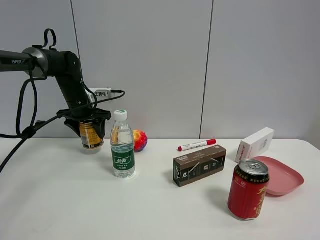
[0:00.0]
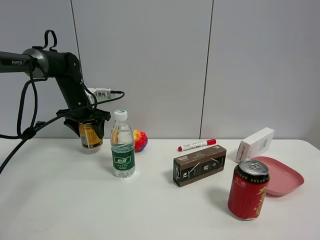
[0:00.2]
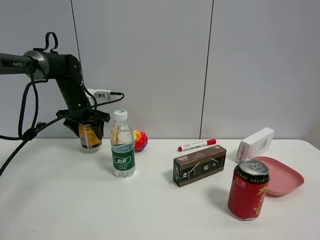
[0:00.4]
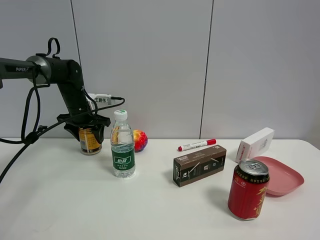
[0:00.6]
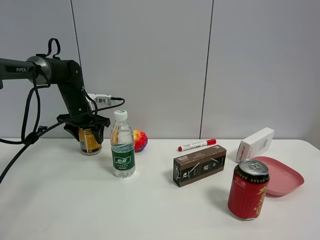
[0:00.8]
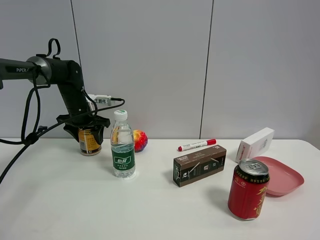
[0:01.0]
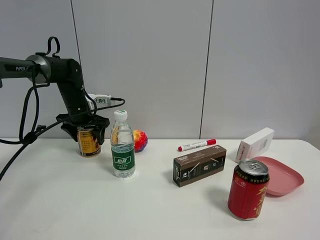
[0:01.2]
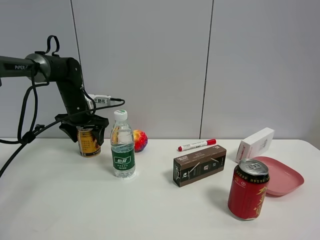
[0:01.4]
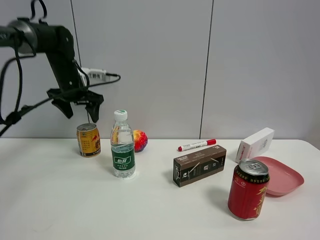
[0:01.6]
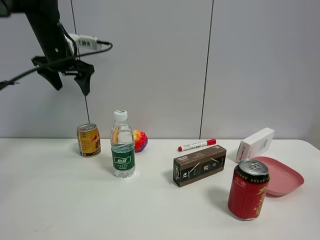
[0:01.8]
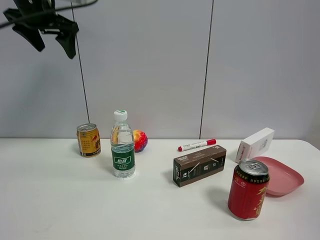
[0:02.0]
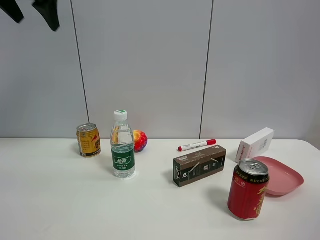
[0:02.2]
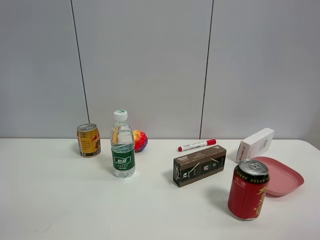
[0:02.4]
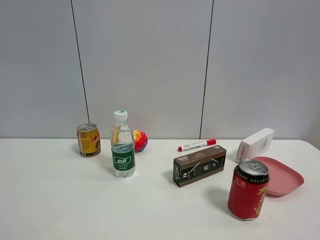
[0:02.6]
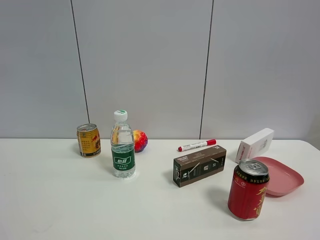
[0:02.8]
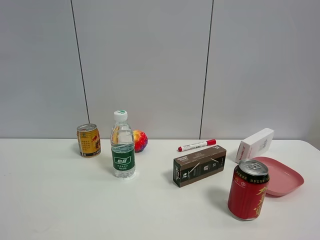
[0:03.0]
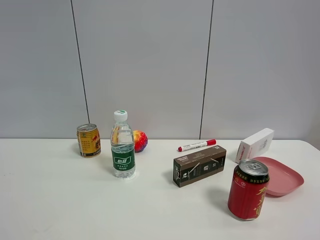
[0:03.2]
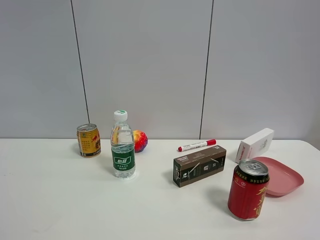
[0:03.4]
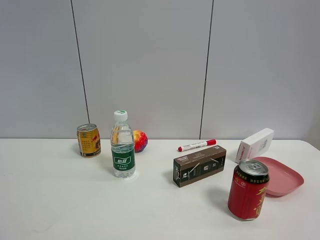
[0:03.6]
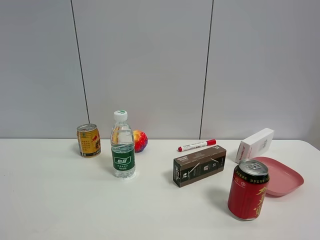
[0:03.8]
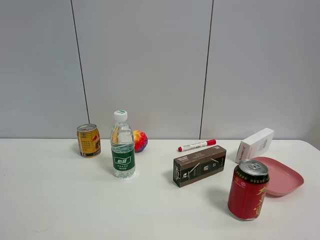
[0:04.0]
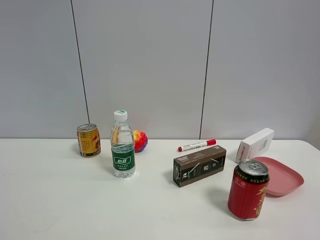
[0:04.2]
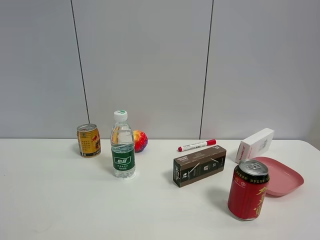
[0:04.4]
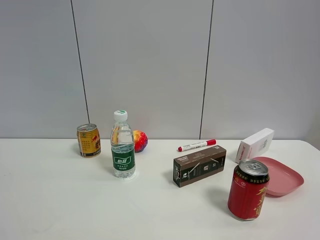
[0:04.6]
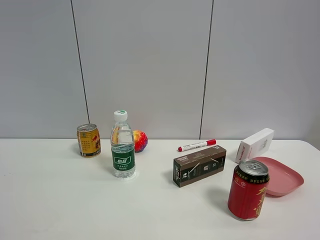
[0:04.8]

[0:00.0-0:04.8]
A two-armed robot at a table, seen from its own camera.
Task of the whole recording: the gripper move the object.
0:00.0 to 0:01.6: The left gripper travels upward by roughly 10 cm, and opens up.
0:01.6 to 0:03.2: The left gripper travels backward by approximately 50 cm.

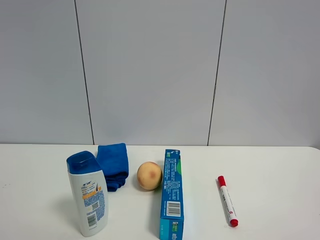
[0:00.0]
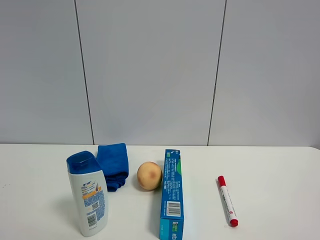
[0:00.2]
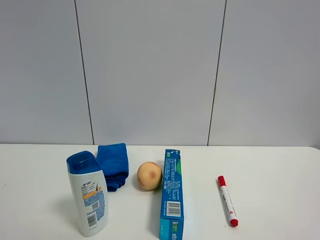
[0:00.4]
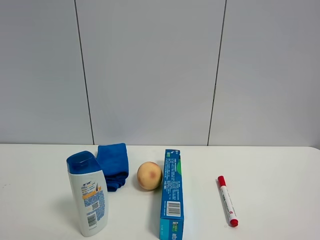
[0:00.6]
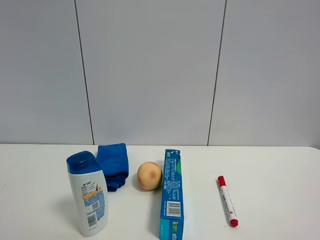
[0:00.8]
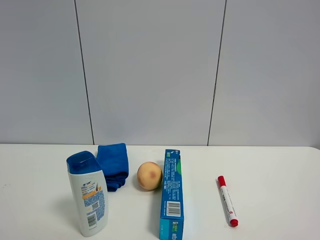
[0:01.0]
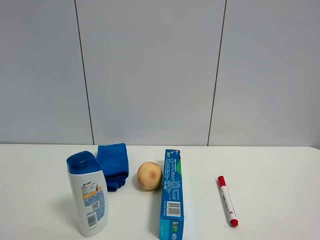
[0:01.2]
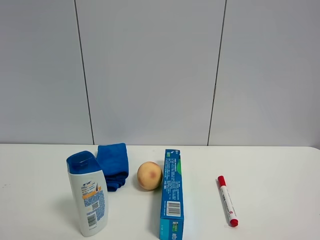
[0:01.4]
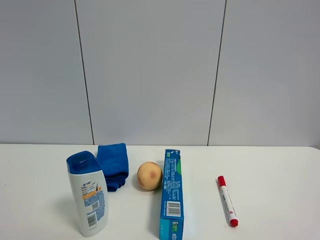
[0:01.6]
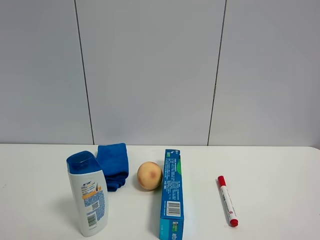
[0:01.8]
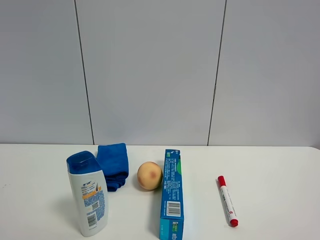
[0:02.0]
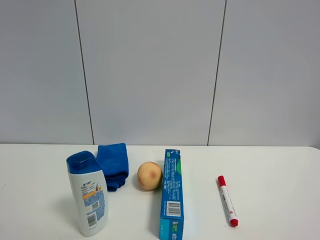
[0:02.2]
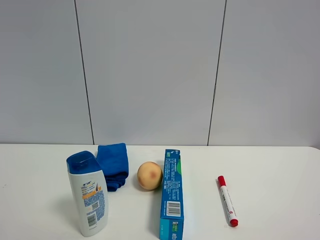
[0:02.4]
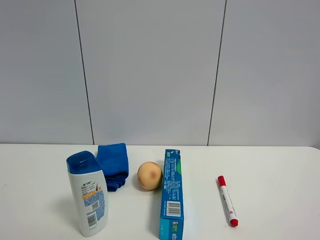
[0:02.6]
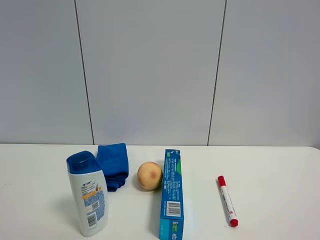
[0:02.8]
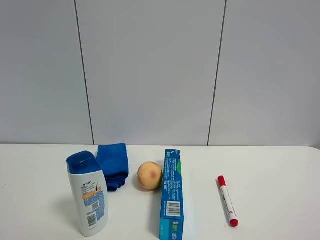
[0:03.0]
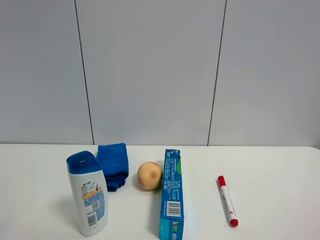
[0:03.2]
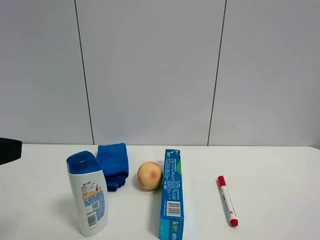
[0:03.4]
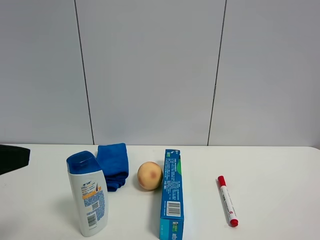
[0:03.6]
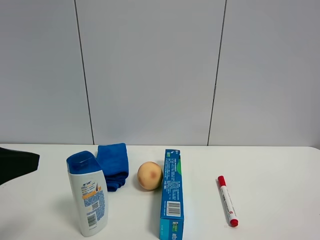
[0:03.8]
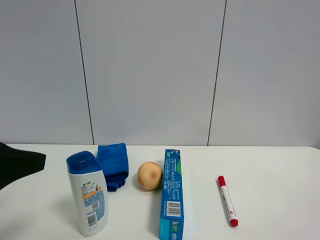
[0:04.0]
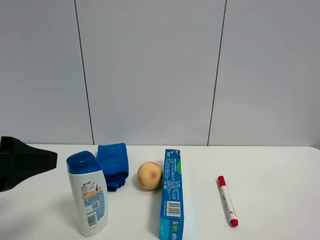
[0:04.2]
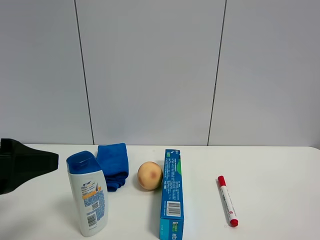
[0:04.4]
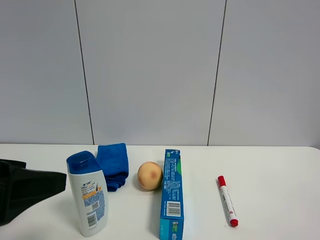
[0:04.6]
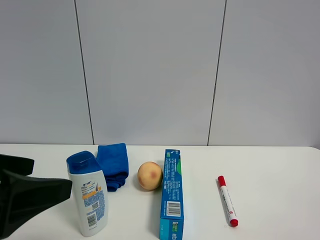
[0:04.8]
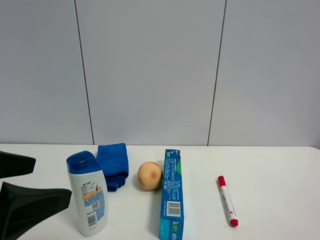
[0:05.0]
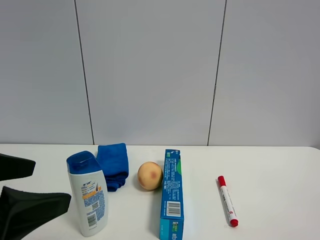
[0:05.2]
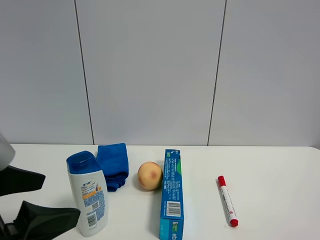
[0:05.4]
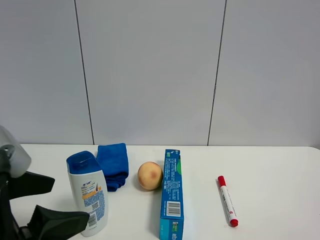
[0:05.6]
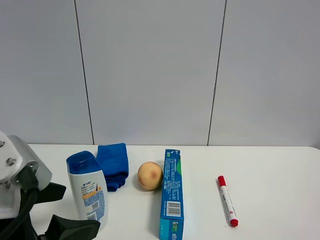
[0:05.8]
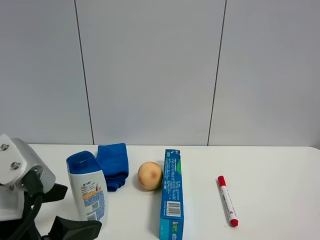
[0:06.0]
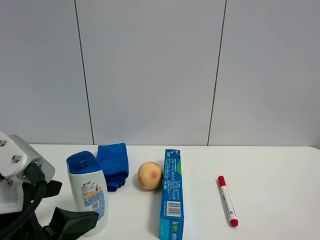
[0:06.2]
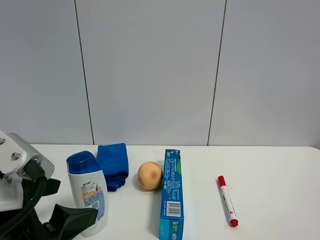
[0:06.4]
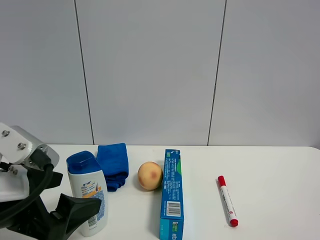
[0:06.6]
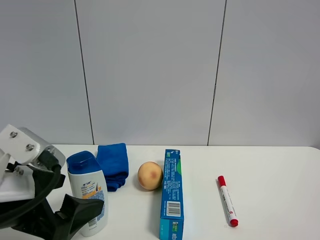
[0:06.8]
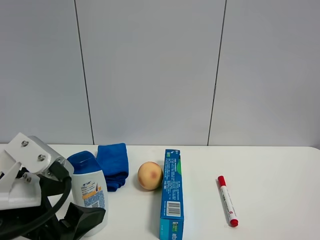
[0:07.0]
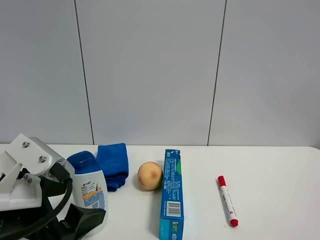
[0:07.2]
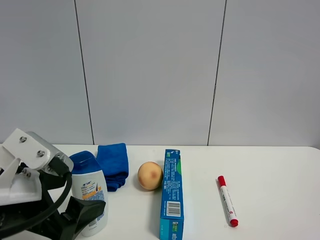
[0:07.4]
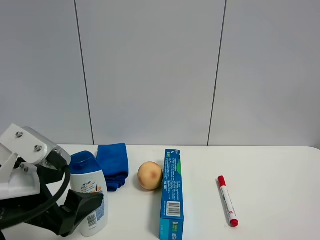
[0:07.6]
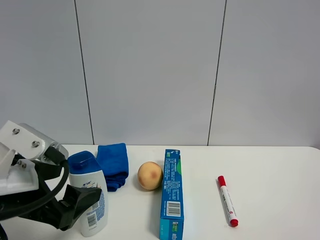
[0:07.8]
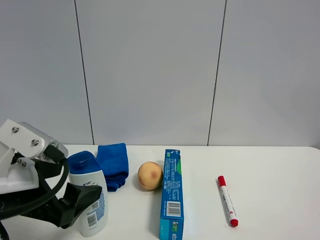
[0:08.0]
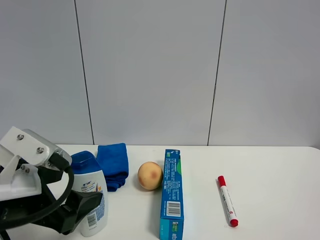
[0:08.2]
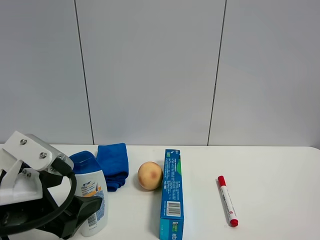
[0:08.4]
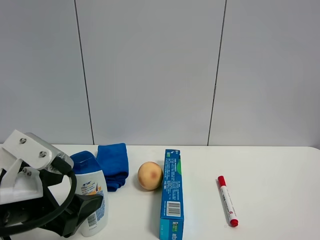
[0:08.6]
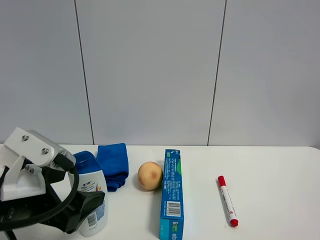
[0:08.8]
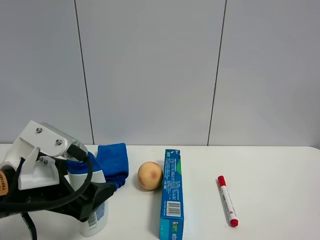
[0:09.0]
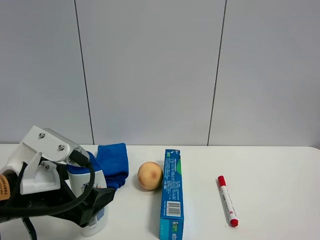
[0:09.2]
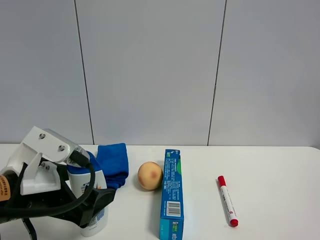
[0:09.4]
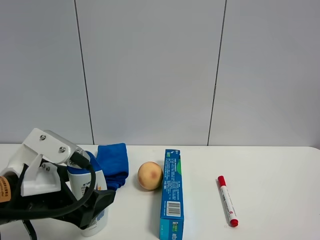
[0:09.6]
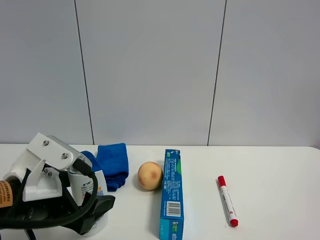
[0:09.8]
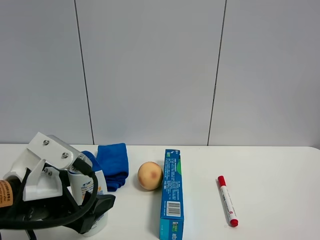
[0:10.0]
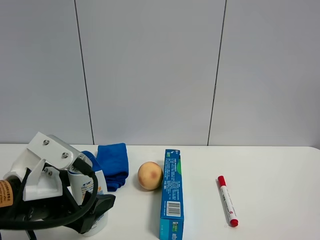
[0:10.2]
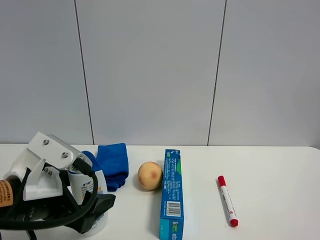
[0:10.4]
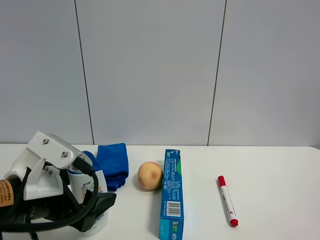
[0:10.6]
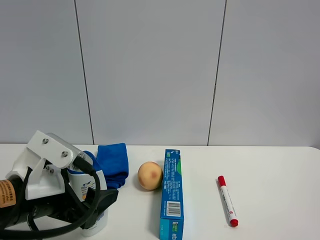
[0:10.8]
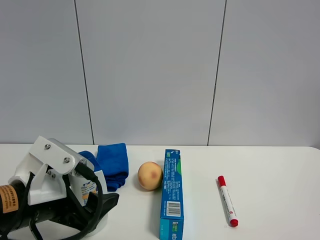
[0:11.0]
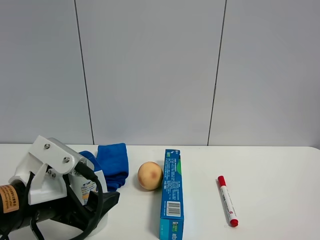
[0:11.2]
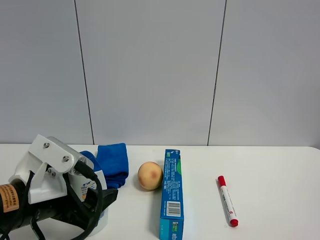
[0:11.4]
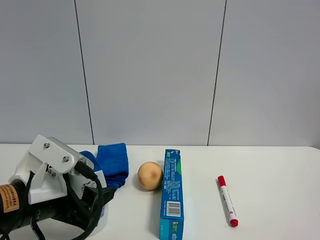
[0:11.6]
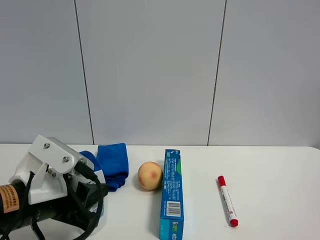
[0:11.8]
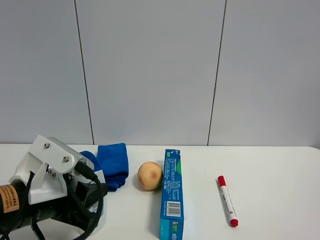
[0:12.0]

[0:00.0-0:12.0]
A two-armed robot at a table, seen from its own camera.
Task of the whole recording: the gripper move the object.
Step, 0:00.0 to 0:12.0: Grasp the shampoo with the left gripper.
0:03.0 to 0:04.4: The left gripper shifts some 10 cm downward and forward.
0:04.4 to 0:06.0: The left gripper goes approximately 5 cm downward.
0:06.0 to 0:09.0: The grippers move only a little.
0:09.0 to 0:10.4: The two grippers keep their place.
0:10.4 to 0:12.0: The left gripper closes its fingers.

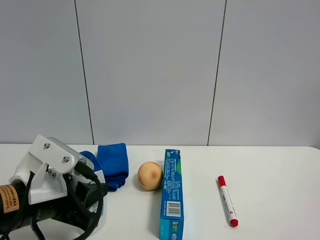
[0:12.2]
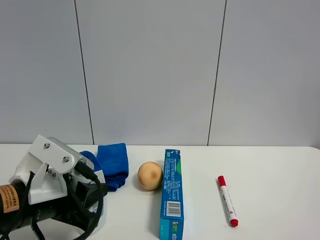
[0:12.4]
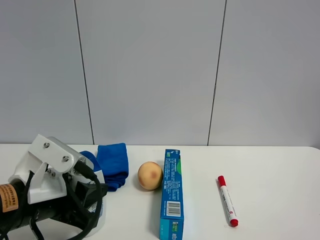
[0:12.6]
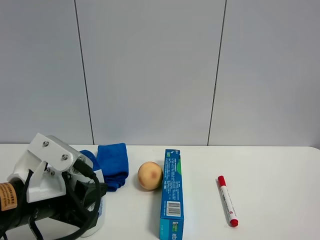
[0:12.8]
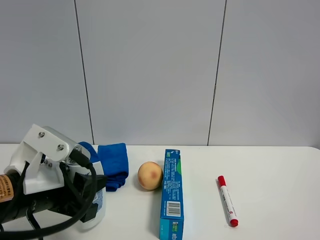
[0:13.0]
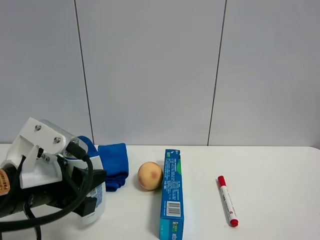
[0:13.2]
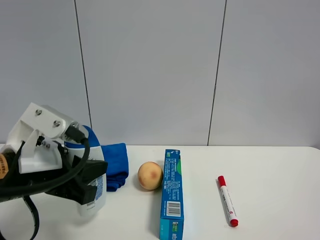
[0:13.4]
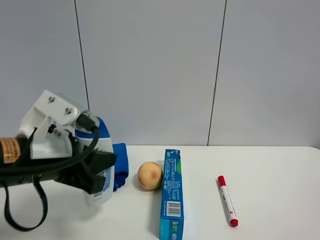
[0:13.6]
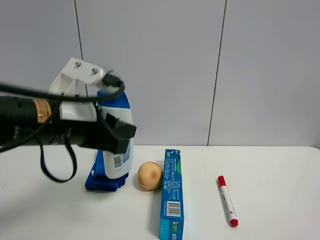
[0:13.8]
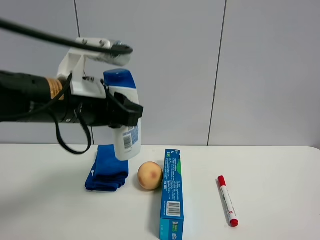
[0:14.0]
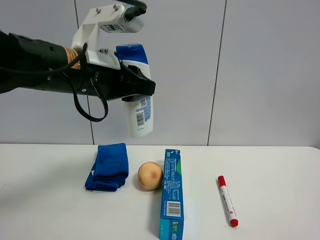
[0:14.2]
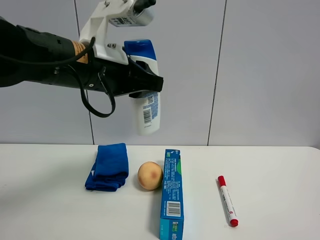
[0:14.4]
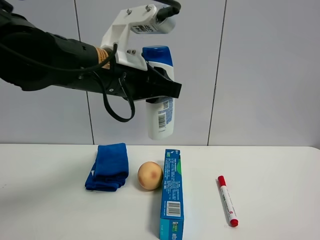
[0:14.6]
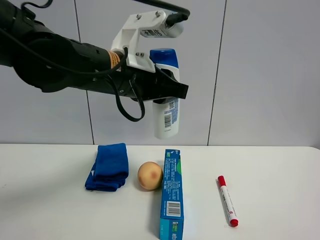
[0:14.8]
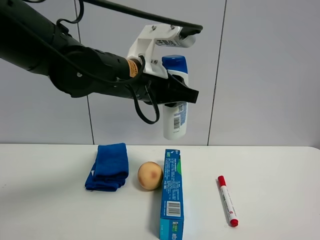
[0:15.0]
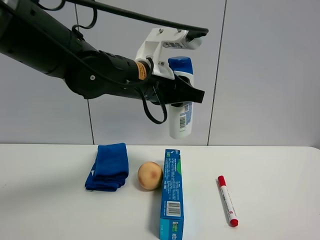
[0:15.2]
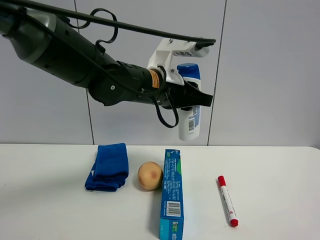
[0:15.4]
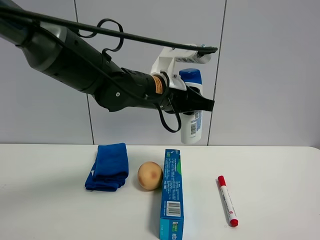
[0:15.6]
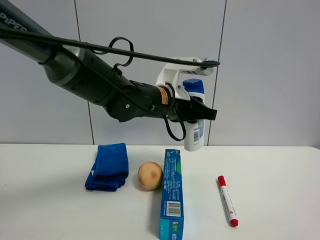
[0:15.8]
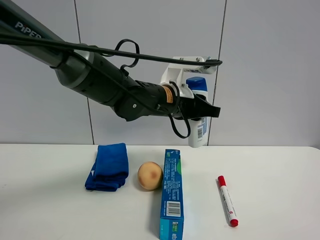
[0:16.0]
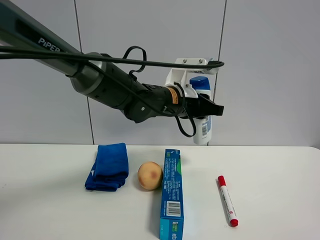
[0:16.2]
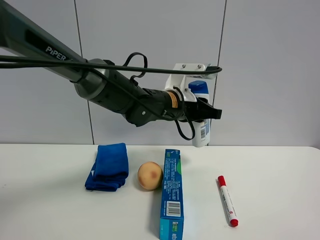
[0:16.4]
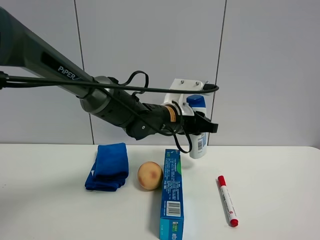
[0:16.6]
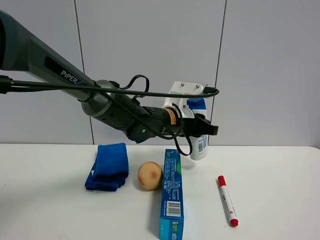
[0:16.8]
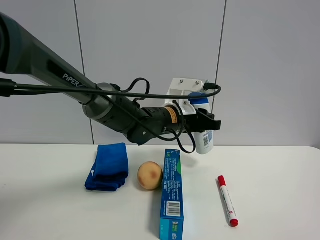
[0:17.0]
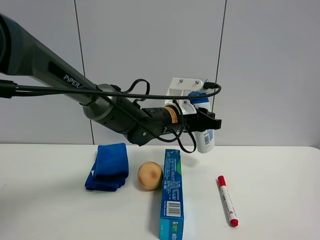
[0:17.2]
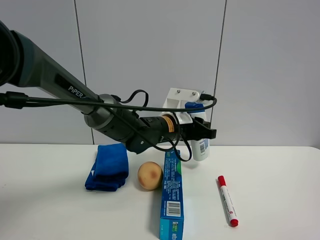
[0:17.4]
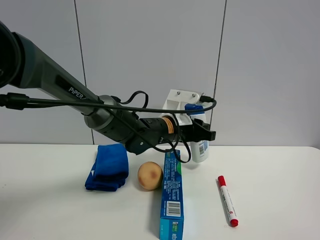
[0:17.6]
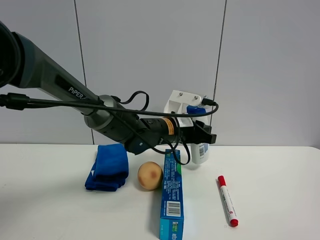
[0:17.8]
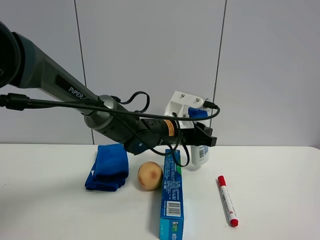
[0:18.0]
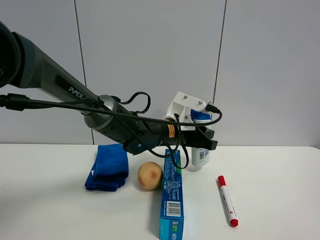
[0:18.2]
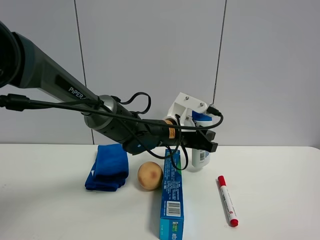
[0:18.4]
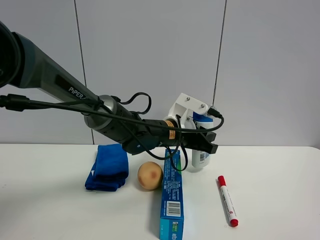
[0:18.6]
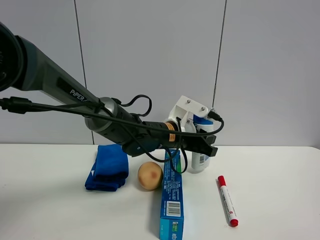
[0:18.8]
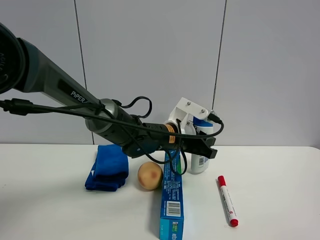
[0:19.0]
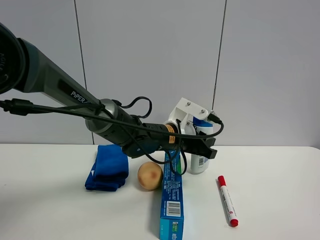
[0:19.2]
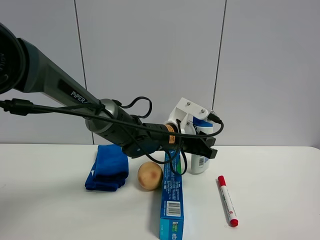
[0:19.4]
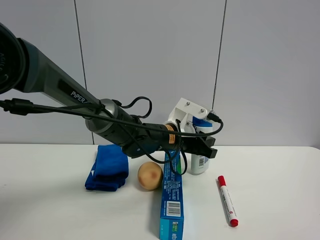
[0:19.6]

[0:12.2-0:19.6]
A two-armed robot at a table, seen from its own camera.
Task of the whole recording: the gripper move the object.
0:12.2 to 0:13.6: The left gripper heads upward, covering about 5 cm.
0:13.6 to 0:15.2: The left gripper shifts approximately 20 cm to the right, forward and upward.
0:15.2 to 0:16.6: The left gripper heads downward and forward, covering roughly 10 cm.
0:16.6 to 0:18.2: There are only small adjustments of the grippers.
0:18.2 to 0:19.6: The two grippers keep their place.
